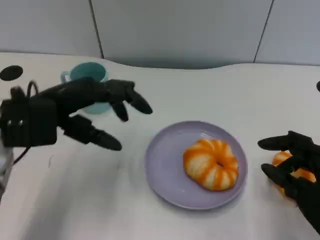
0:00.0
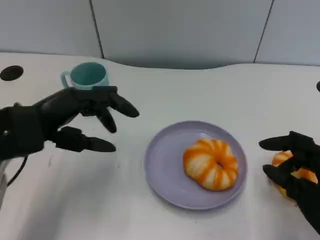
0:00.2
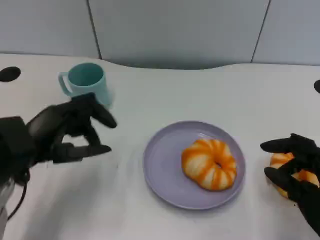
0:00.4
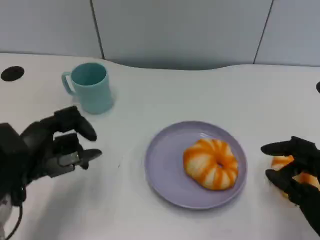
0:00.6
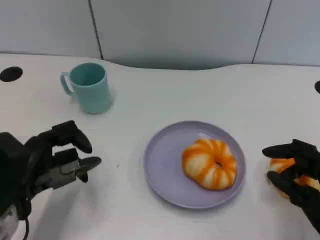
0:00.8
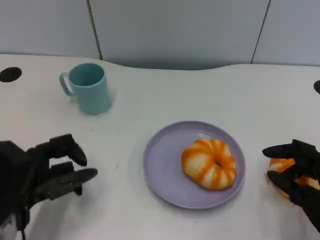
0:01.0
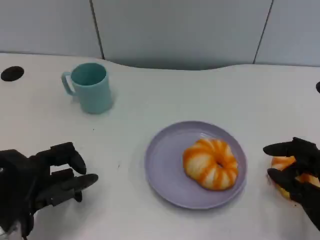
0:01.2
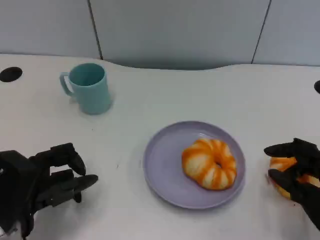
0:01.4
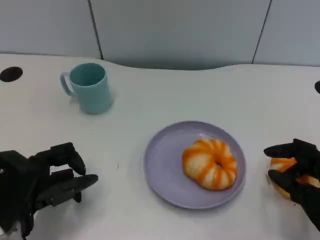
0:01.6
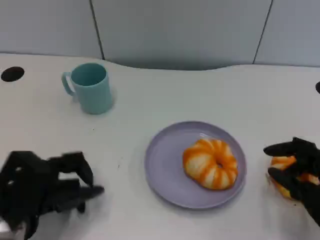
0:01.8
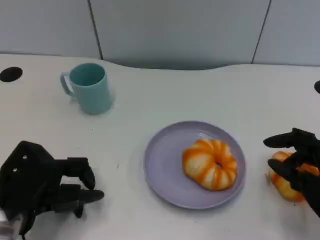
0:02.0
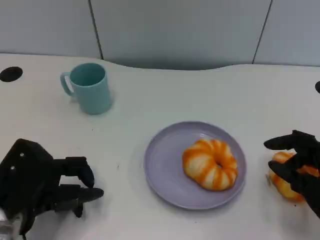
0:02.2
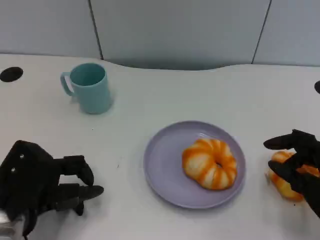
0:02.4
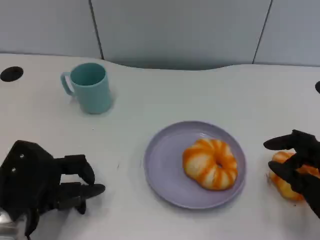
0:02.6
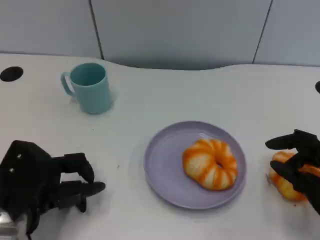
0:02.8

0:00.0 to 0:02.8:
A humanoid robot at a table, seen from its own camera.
Task of the whole recording: Grasp the bread from the table and place it into the plate.
0:00.0 to 0:01.4: The left hand moves downward and backward, about 15 cm.
0:01.4 to 0:02.8: The hands move only a little.

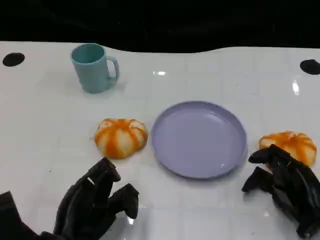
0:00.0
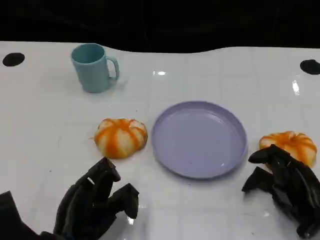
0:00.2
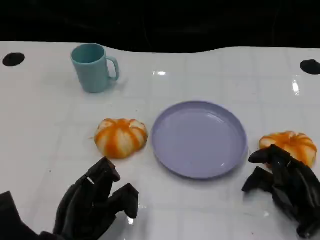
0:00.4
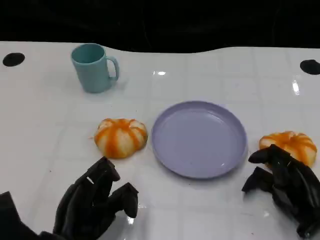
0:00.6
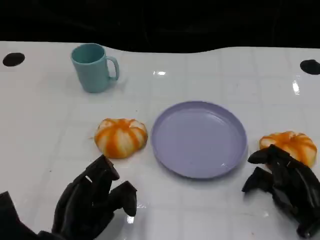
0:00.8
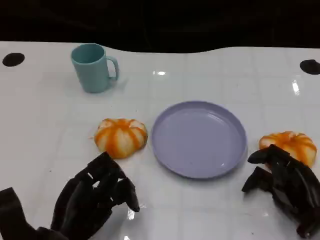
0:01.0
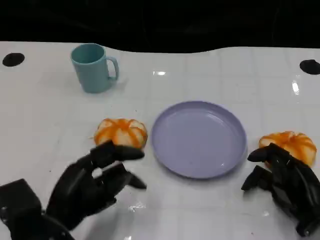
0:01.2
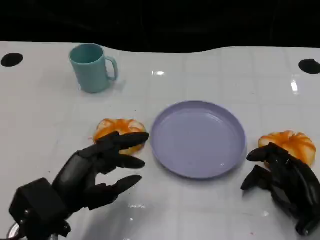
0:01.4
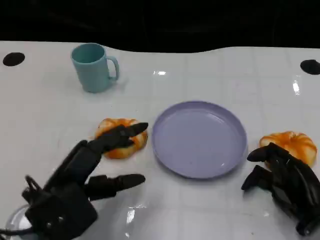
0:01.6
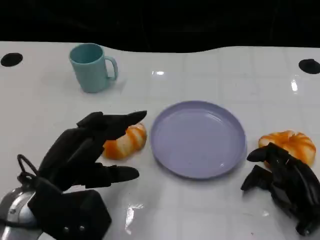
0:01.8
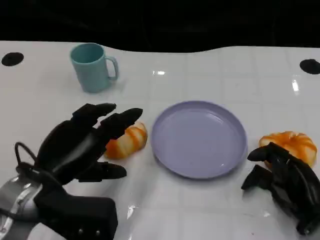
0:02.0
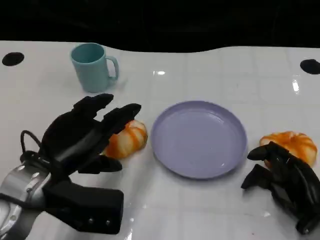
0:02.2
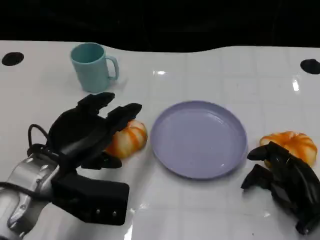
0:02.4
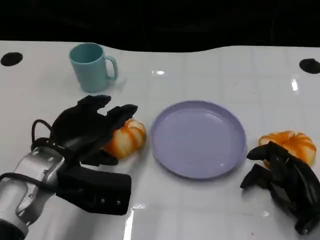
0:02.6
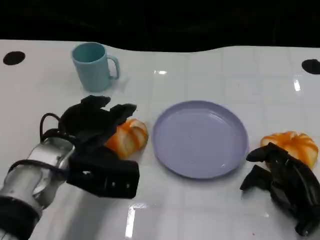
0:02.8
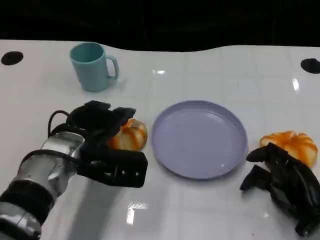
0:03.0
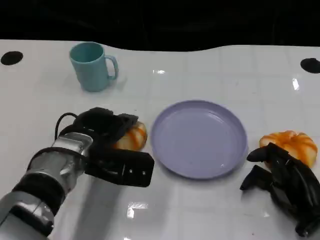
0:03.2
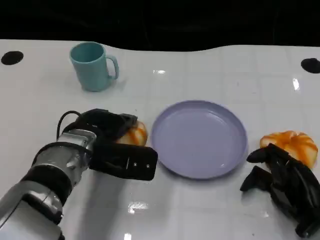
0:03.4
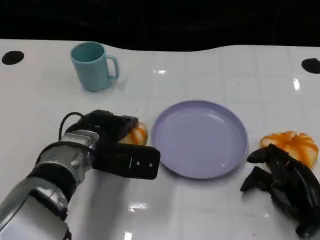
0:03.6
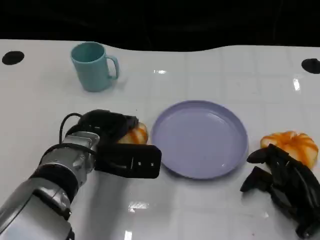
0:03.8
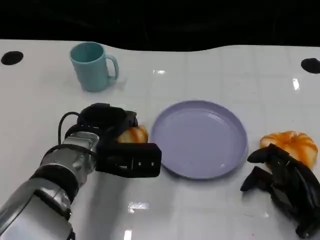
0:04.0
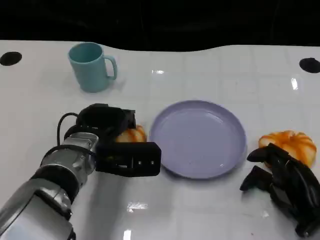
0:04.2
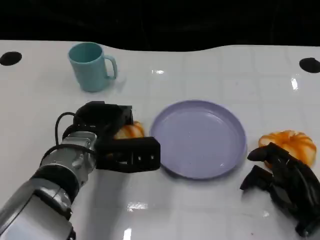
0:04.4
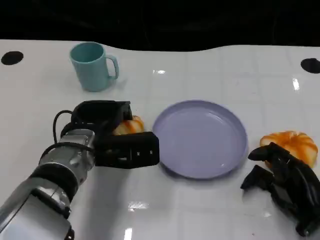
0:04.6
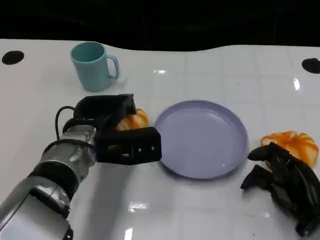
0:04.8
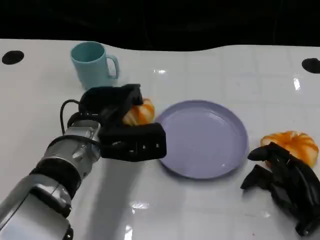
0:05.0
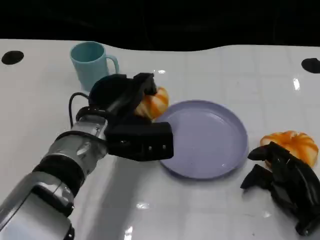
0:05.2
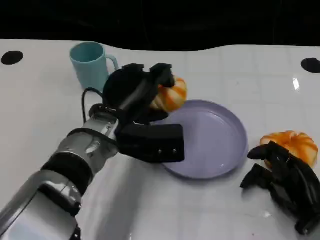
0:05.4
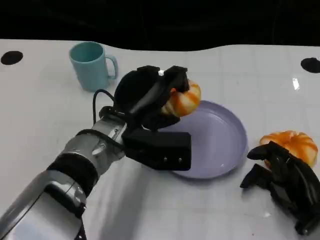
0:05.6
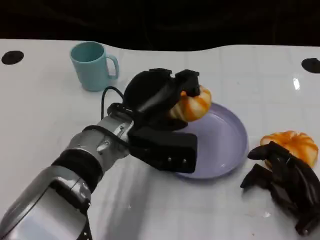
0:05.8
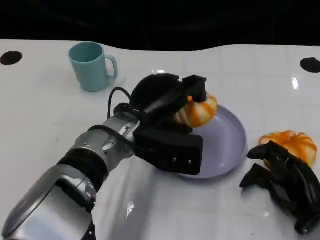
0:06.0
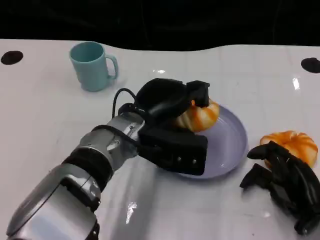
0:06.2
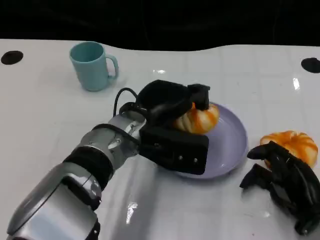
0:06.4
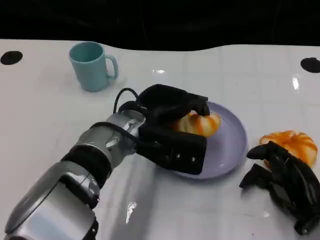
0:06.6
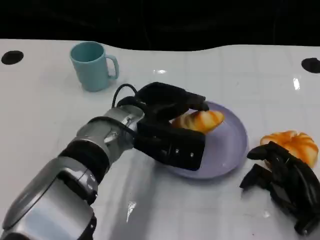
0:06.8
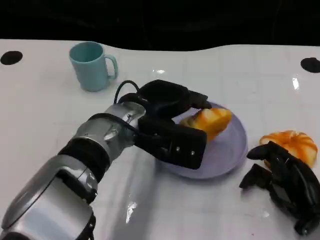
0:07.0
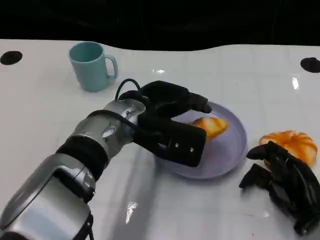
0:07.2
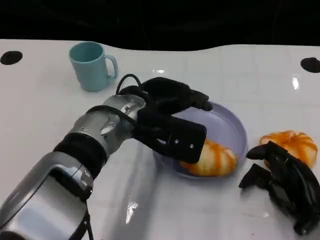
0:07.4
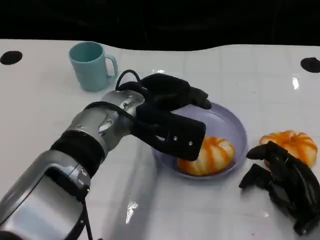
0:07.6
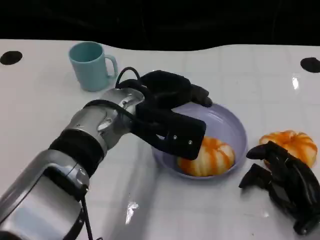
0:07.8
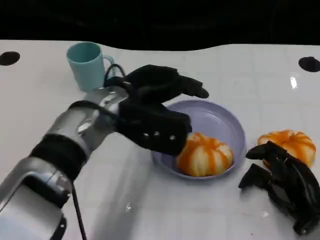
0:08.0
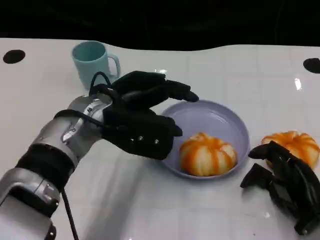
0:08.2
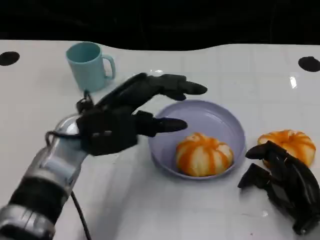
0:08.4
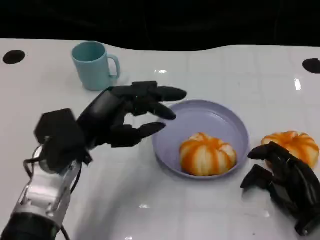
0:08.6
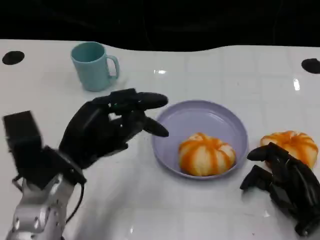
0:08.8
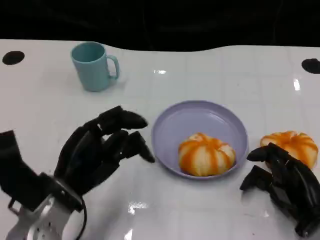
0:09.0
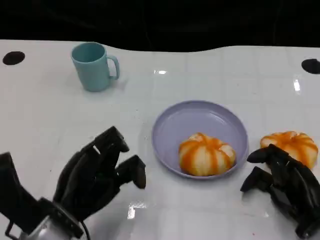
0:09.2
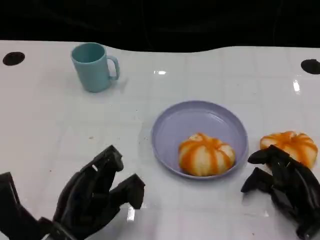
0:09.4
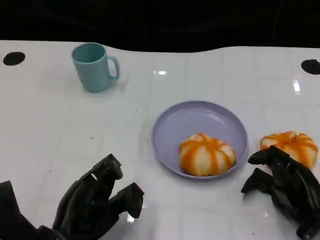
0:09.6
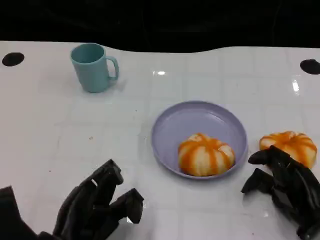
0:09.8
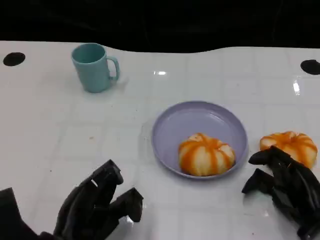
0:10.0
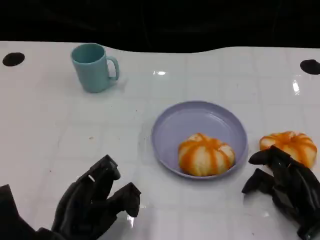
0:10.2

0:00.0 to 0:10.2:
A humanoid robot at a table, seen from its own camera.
Task of the whole recording: Grasp the bread from the table and place it into the plate.
0:00.0 to 0:01.4: The left hand goes approximately 5 cm upward.
0:01.4 to 0:03.0: The left hand travels forward by roughly 10 cm.
0:03.0 to 0:04.4: There are only small adjustments of the hands.
0:04.4 to 0:05.8: The left hand moves to the right, about 5 cm.
0:07.2 to 0:08.8: The left hand goes roughly 15 cm to the left and backward.
0:08.8 to 0:10.2: The left hand travels backward and downward by roughly 10 cm.

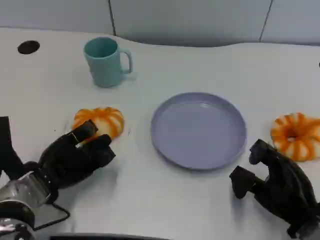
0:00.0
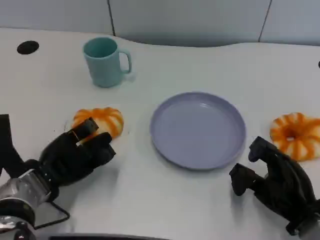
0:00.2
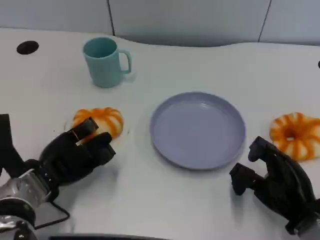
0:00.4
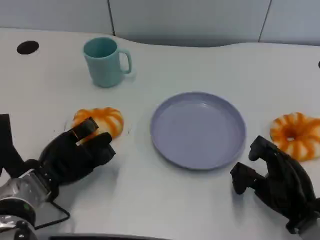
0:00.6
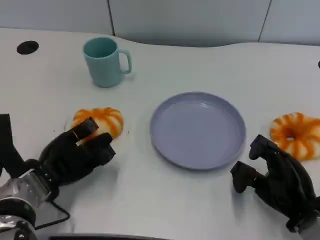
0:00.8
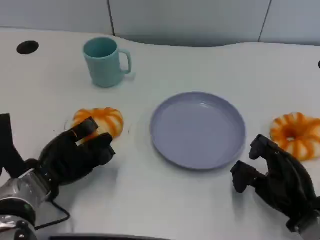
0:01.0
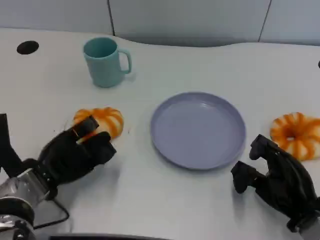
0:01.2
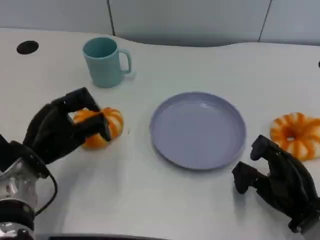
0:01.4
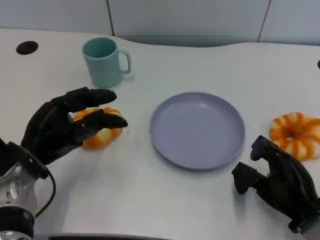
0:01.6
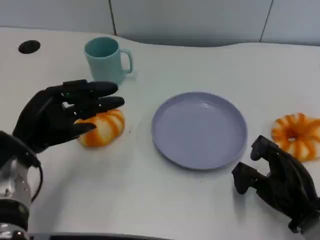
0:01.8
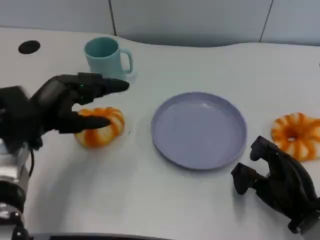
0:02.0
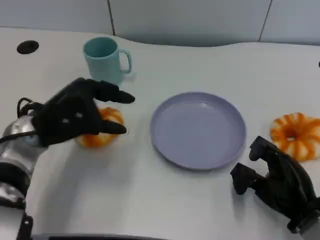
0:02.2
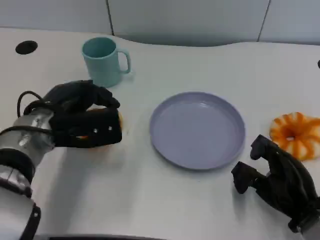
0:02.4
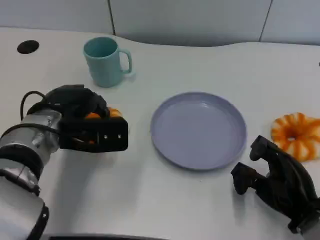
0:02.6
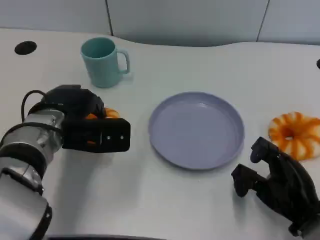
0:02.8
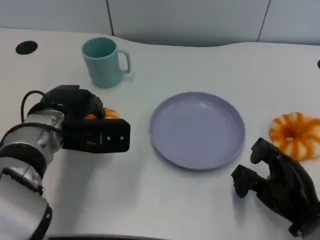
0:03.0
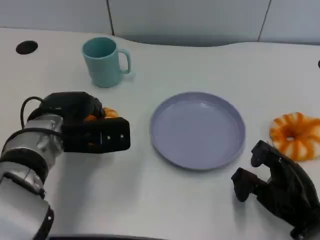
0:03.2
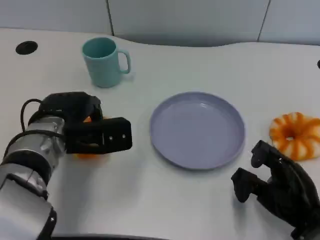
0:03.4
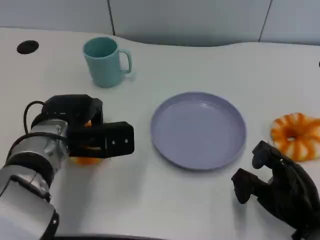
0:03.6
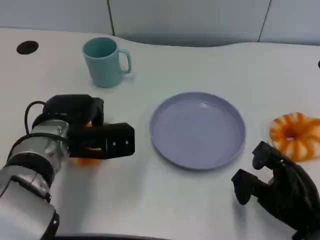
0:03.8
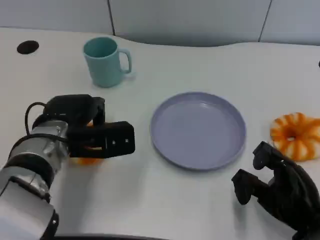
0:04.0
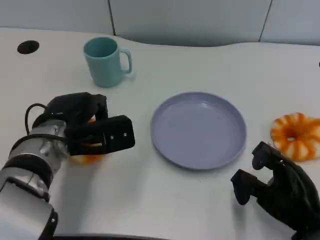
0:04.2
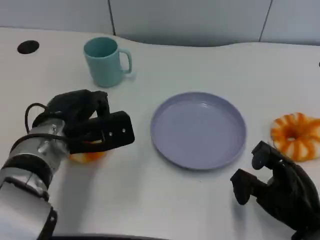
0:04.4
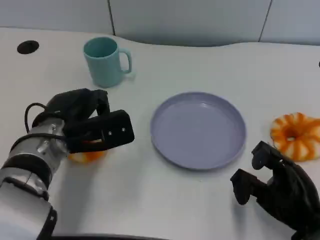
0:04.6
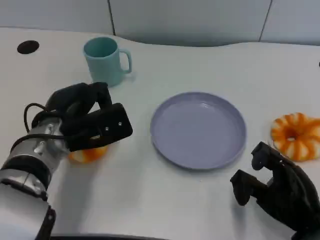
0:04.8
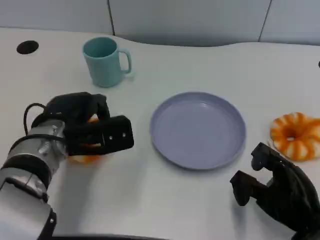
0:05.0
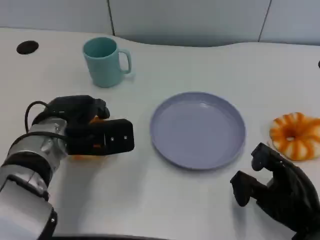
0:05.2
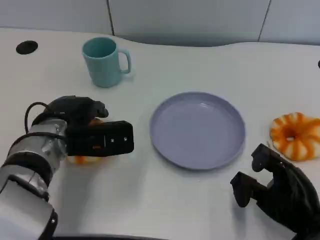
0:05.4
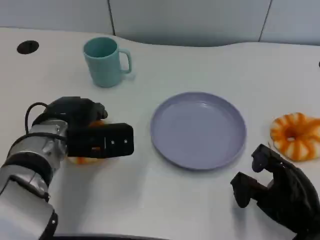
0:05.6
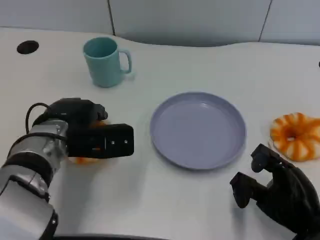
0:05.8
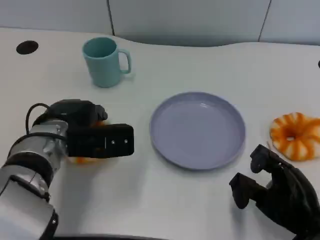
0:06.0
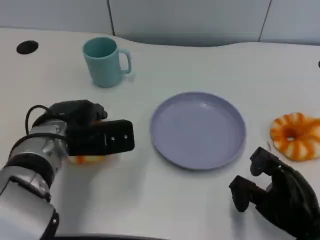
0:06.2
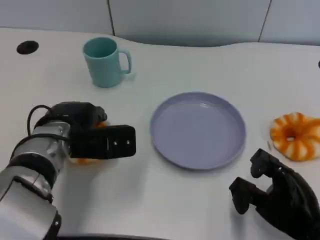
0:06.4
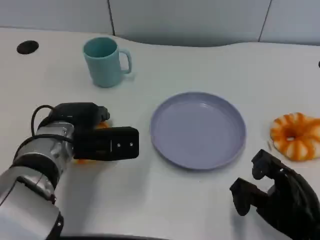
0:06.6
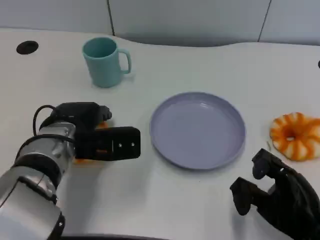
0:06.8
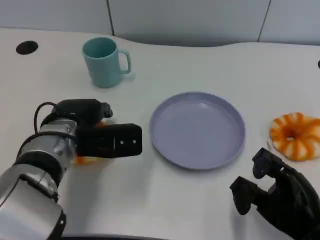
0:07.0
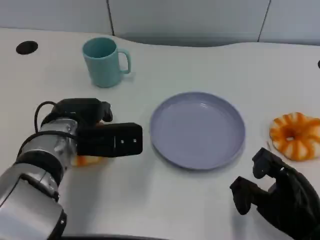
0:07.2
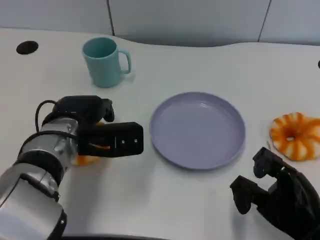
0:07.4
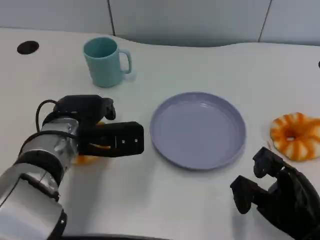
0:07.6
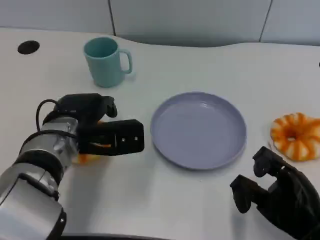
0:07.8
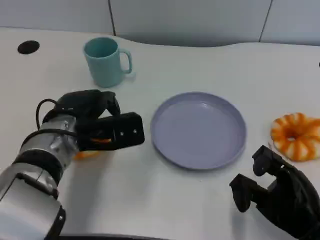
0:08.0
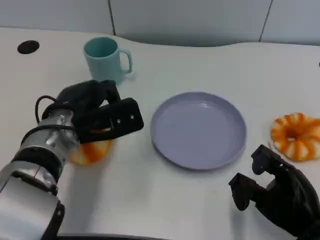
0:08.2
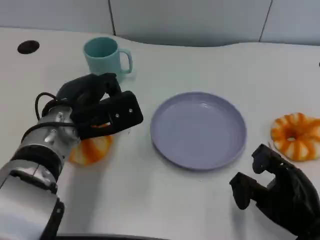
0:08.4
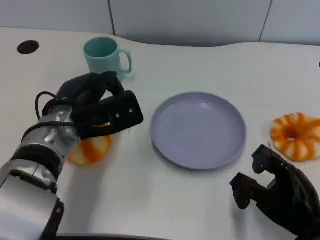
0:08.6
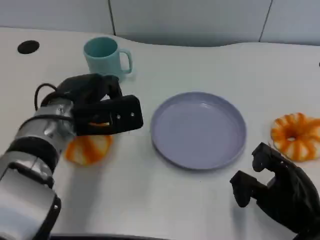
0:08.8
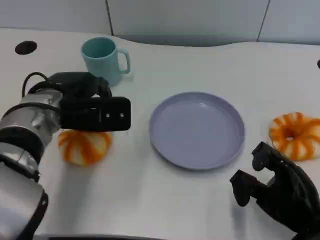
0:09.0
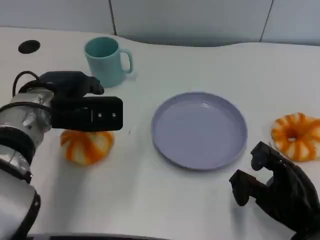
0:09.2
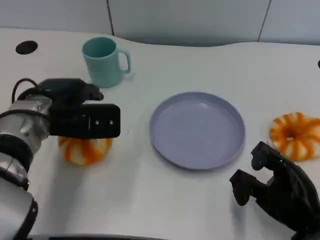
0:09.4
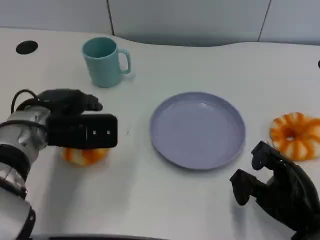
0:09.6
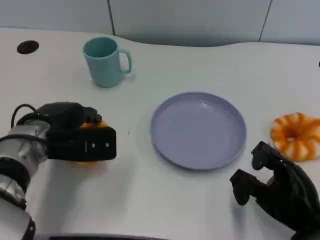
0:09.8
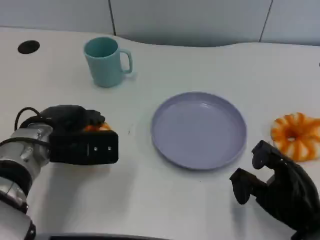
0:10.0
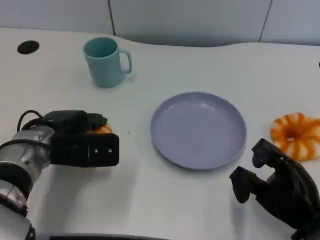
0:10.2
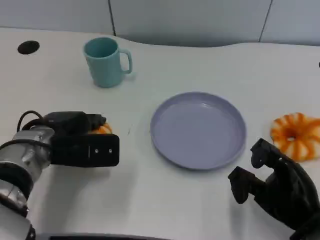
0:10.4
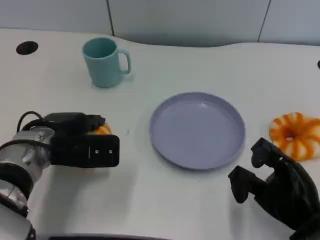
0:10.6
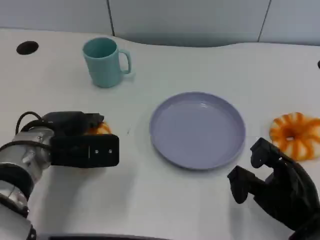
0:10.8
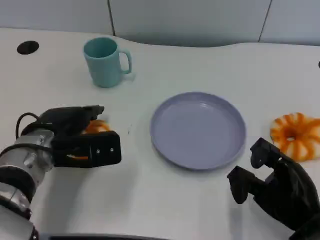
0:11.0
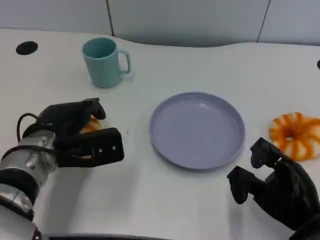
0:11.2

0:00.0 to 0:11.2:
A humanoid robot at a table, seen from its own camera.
Task of the whole recording: Grasp the bread from the table and place it into the plate.
0:01.6 to 0:03.2: The left hand goes roughly 5 cm to the right.
0:06.4 to 0:08.0: The hands move only a little.
0:08.0 to 0:11.2: The hands move only a little.
